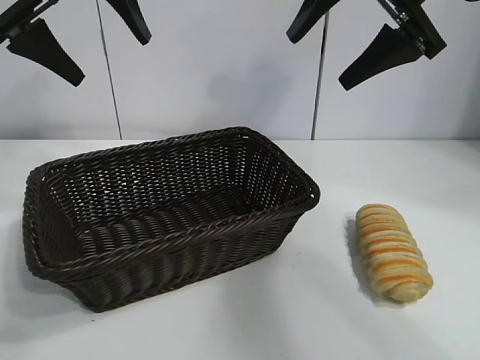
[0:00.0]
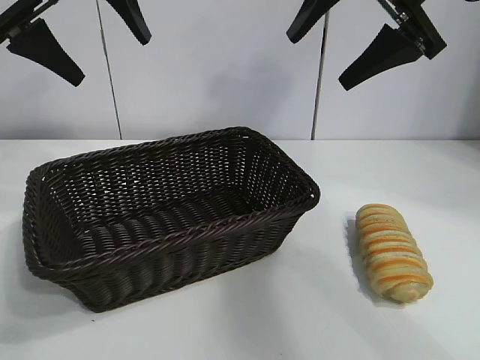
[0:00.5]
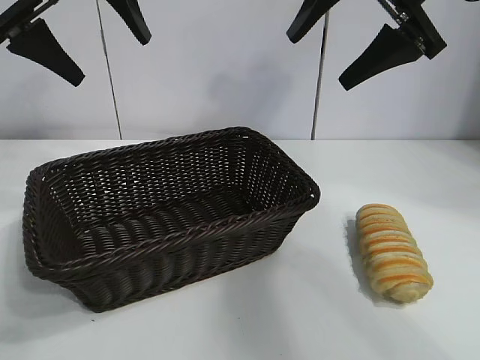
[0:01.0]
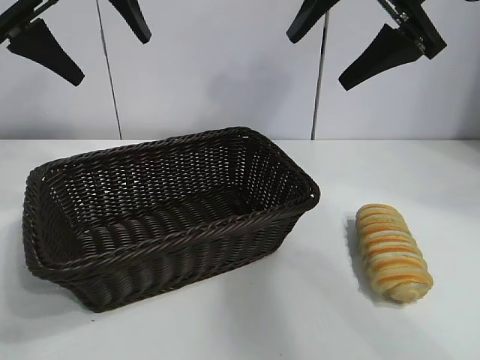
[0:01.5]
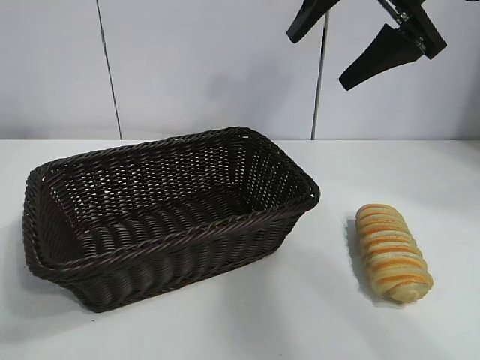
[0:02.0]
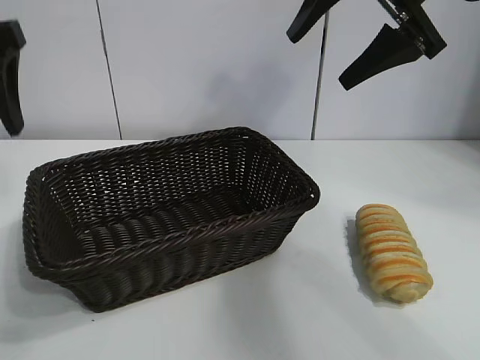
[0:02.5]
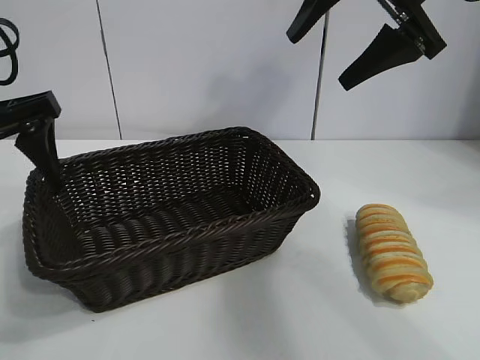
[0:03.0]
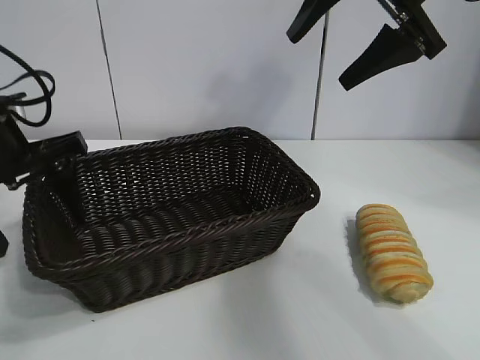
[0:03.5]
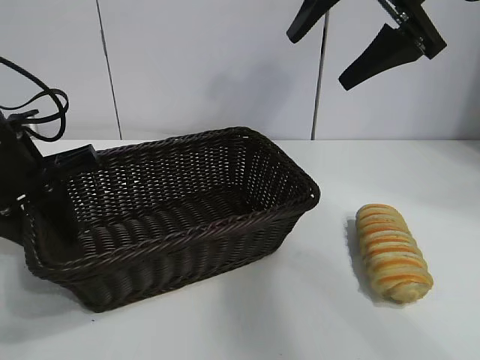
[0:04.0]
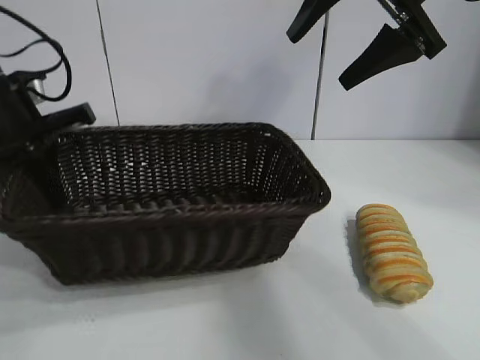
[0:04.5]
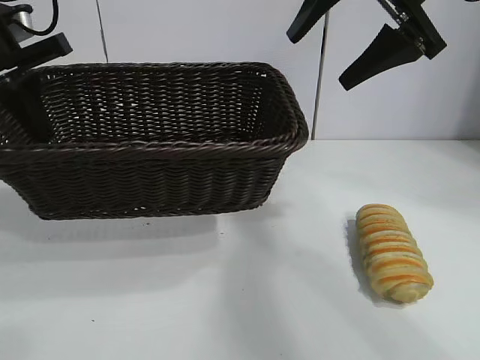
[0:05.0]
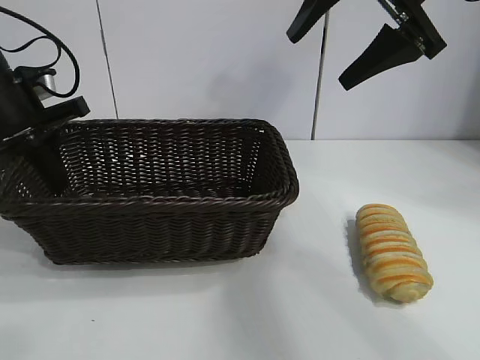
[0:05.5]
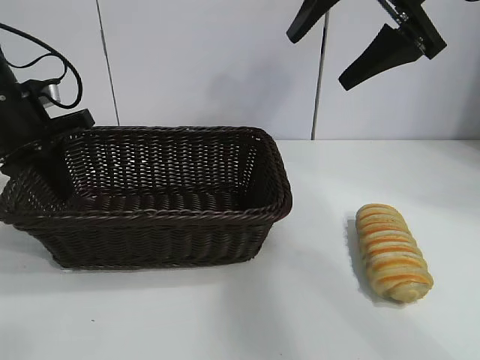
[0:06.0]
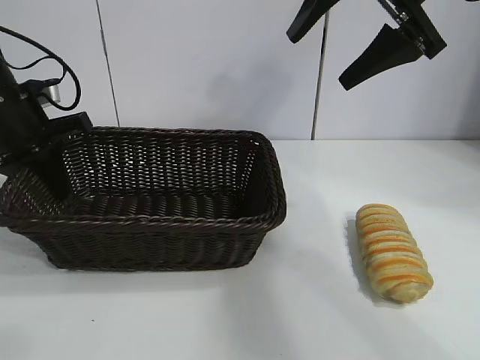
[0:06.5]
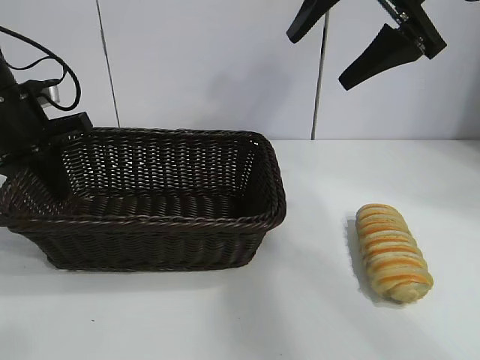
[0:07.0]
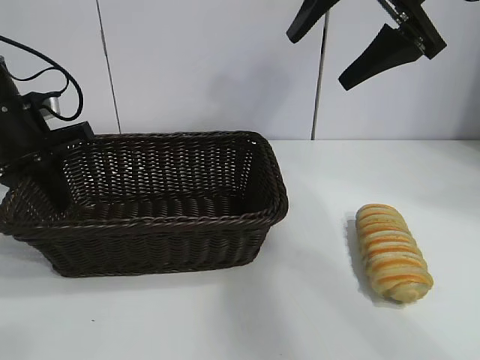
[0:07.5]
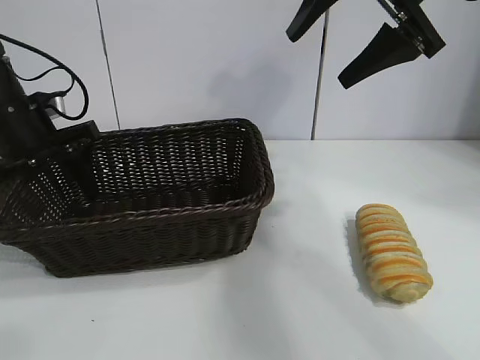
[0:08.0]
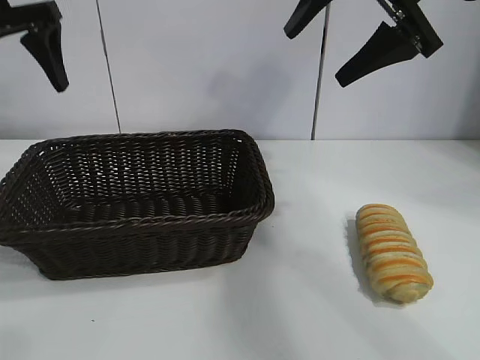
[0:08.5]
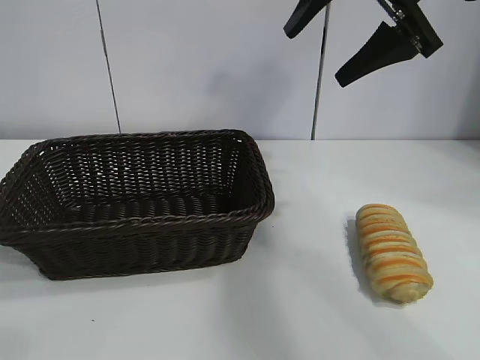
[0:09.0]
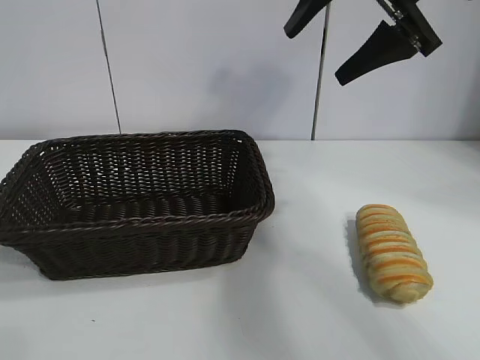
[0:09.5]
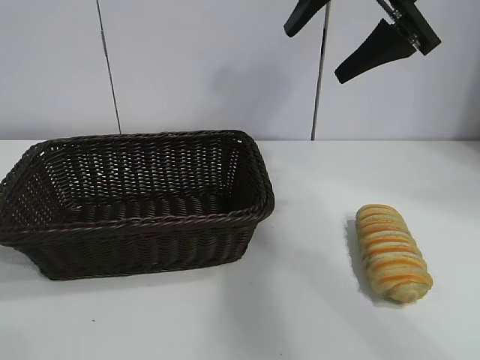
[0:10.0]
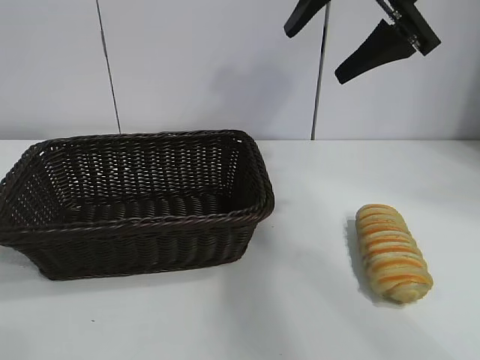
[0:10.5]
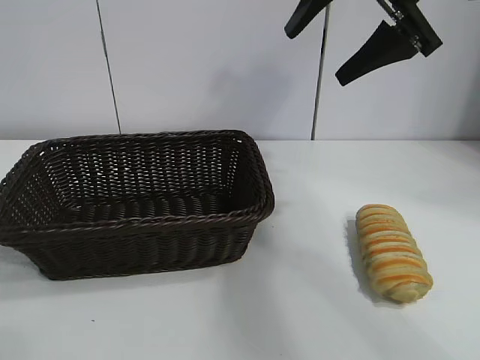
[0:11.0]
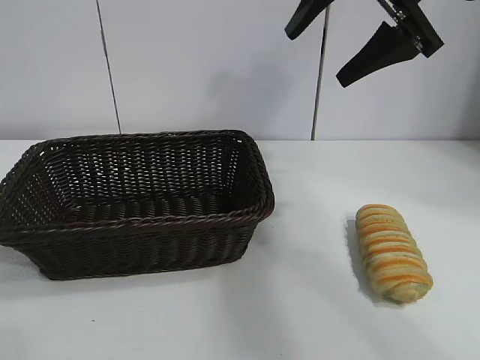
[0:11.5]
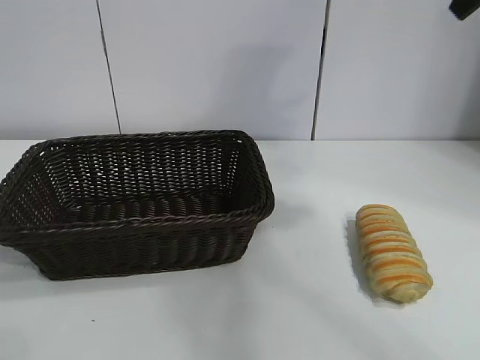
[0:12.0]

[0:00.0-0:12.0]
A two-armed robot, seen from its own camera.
Task of the whole recording: pick up the long bread and put it into the basket.
Step, 0:01.5 to 0:04.0: Grasp the basket with the left gripper.
Step, 0:04.5 to 0:08.0: Place the basket in the center of the table with the left gripper.

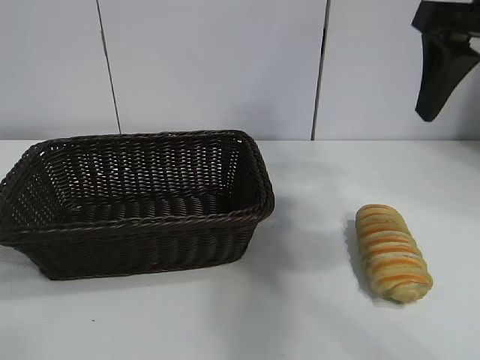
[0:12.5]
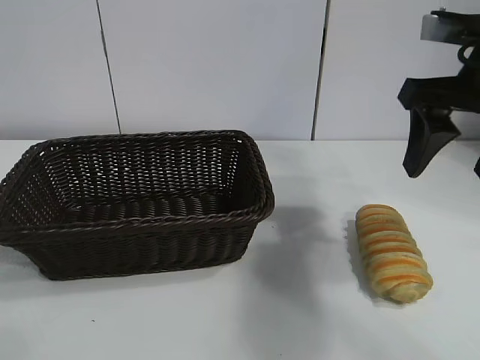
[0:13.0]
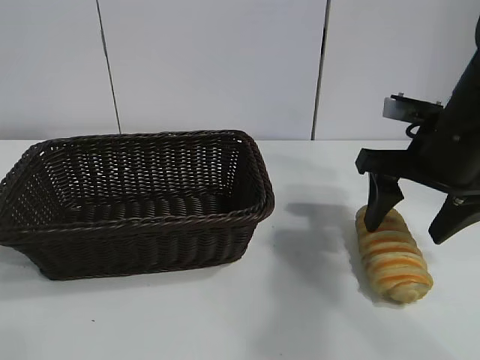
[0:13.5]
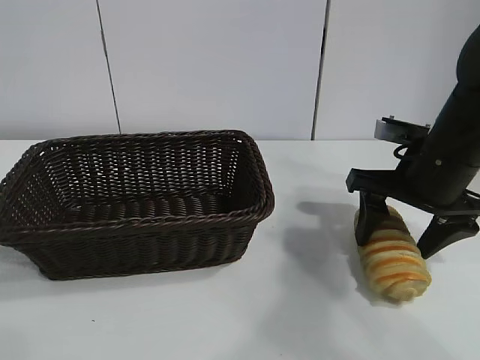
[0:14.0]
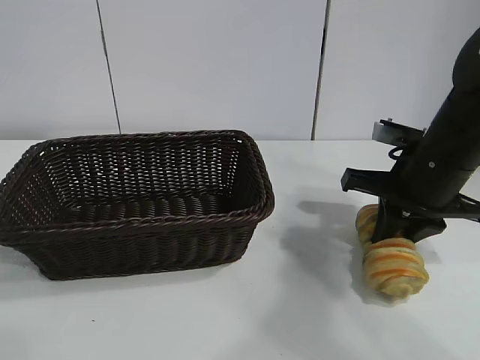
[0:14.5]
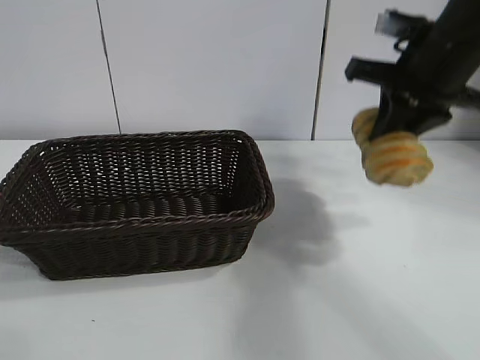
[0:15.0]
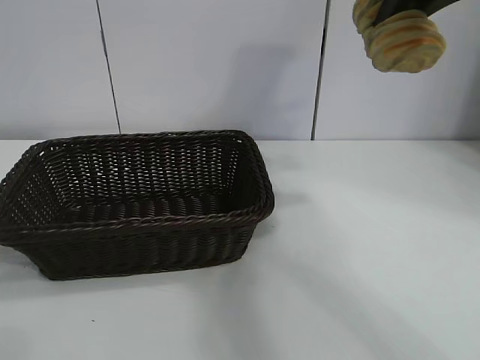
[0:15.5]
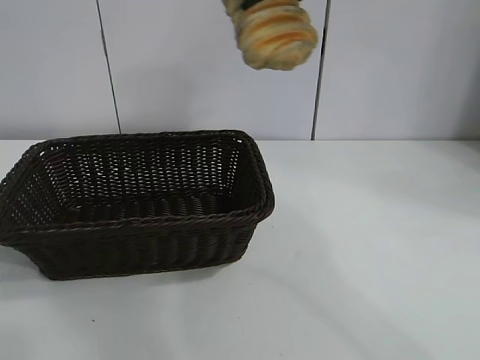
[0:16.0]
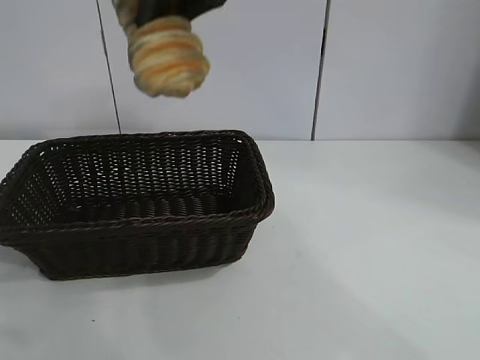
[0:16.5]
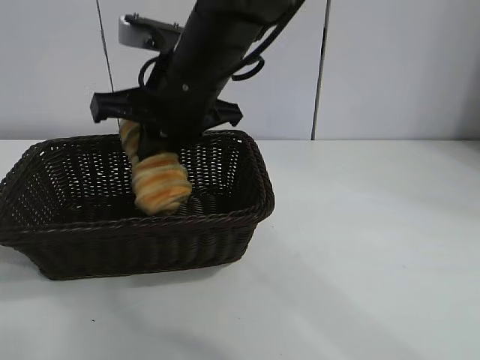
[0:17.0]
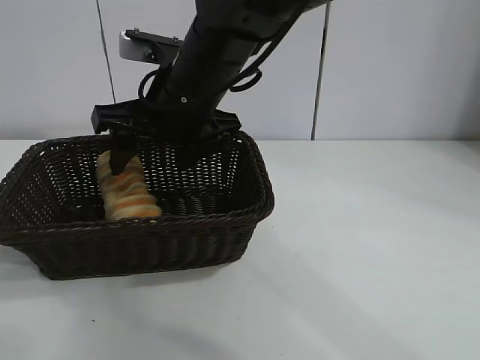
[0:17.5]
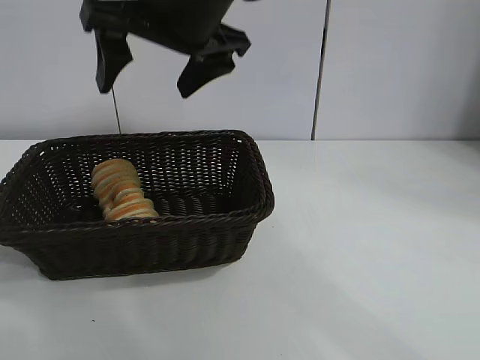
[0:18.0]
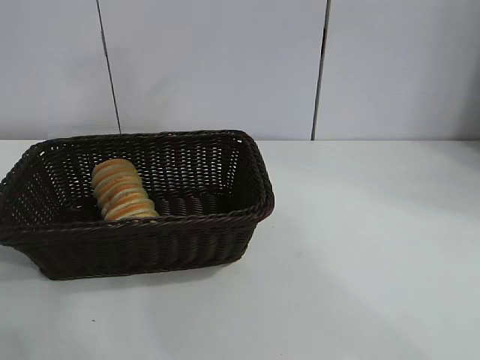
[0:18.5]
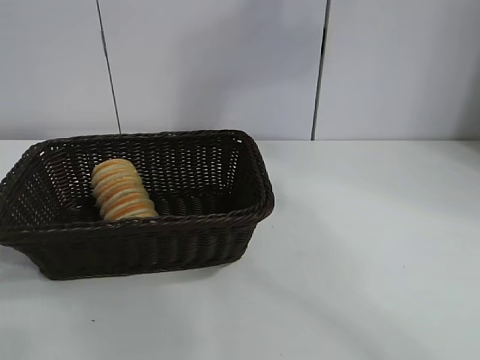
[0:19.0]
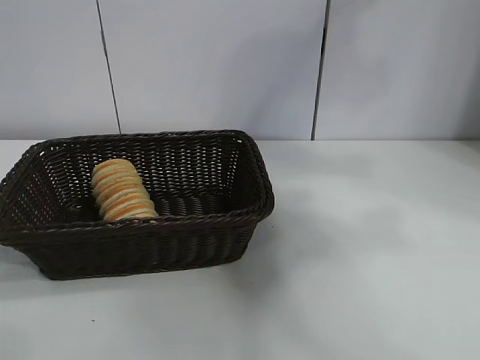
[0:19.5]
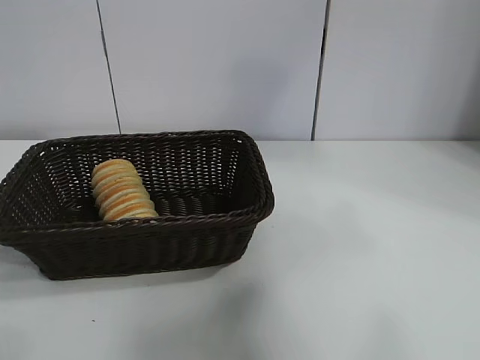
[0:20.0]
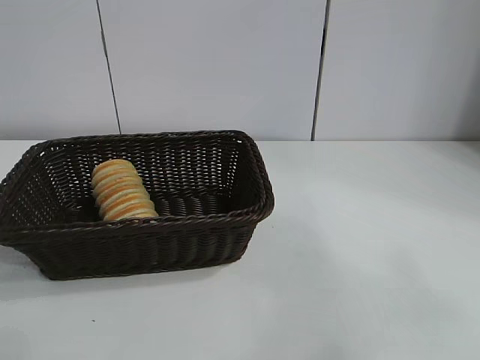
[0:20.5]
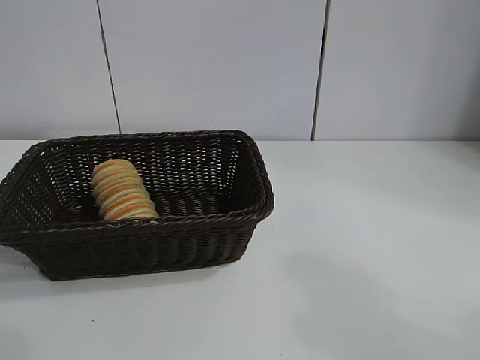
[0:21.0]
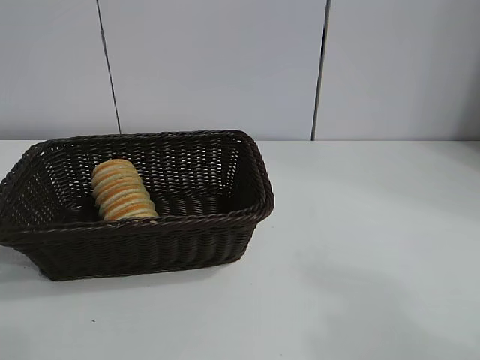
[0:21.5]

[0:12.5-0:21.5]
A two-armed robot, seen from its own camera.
Task of the whole recording: pick up the long bread and put it into the basket.
Step, 0:14.5 to 0:17.5: Place the long bread in the basket with right gripper.
